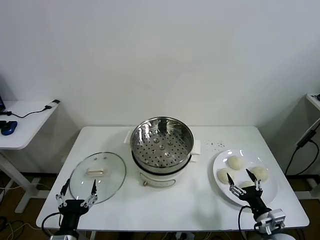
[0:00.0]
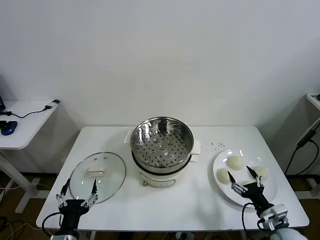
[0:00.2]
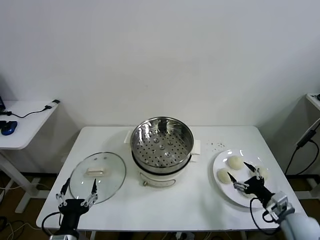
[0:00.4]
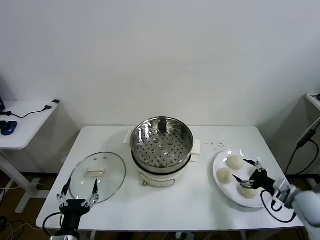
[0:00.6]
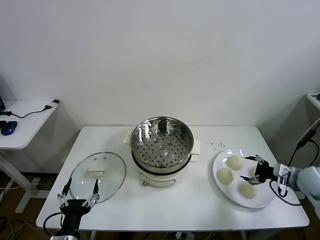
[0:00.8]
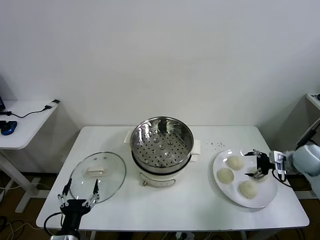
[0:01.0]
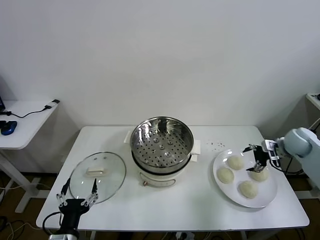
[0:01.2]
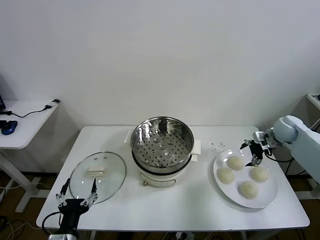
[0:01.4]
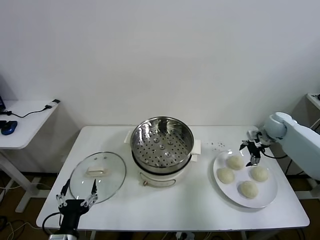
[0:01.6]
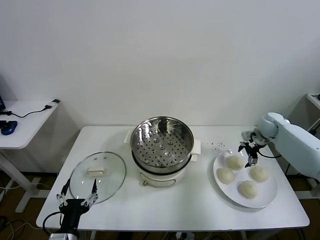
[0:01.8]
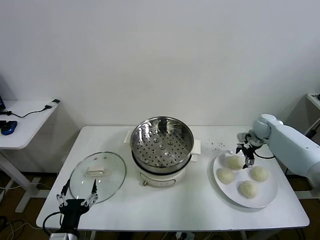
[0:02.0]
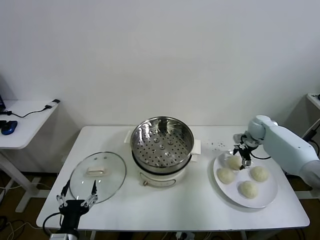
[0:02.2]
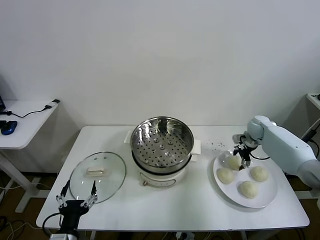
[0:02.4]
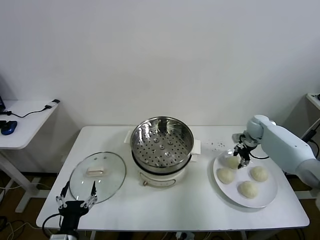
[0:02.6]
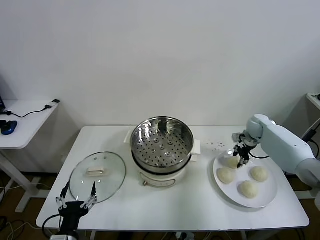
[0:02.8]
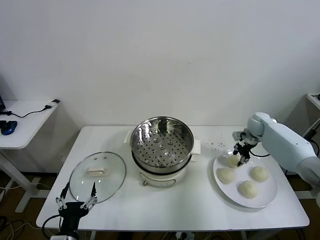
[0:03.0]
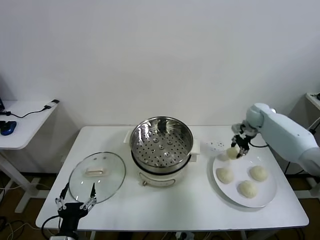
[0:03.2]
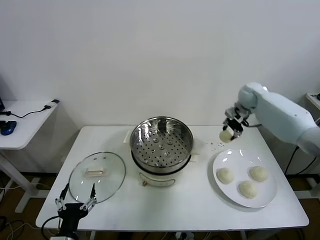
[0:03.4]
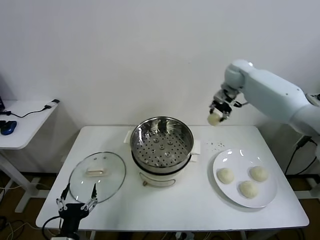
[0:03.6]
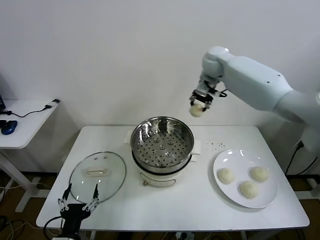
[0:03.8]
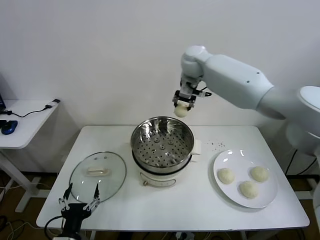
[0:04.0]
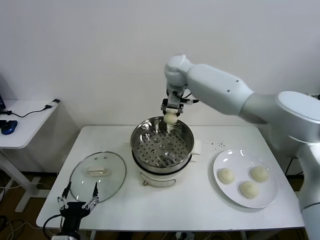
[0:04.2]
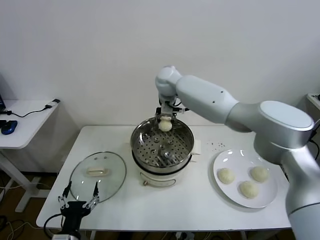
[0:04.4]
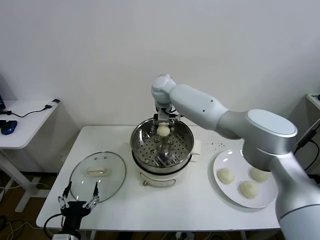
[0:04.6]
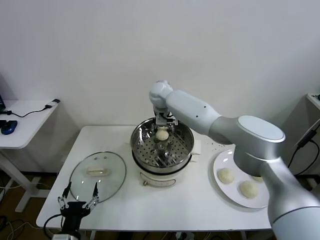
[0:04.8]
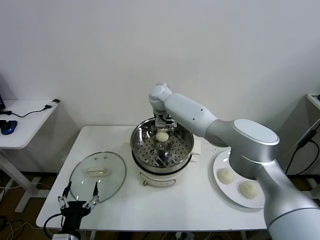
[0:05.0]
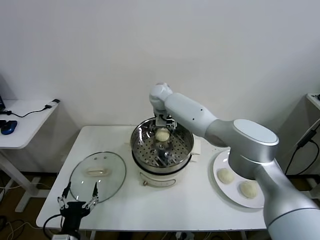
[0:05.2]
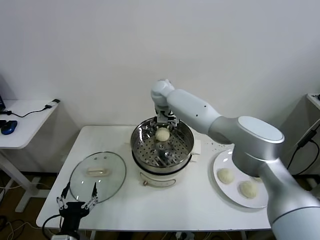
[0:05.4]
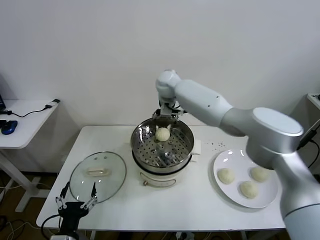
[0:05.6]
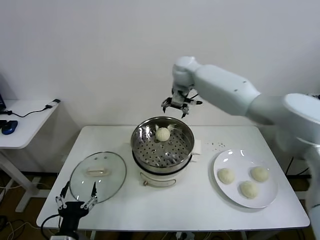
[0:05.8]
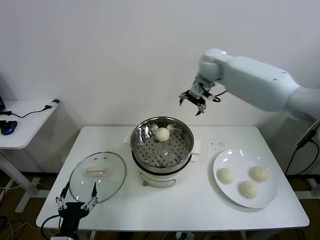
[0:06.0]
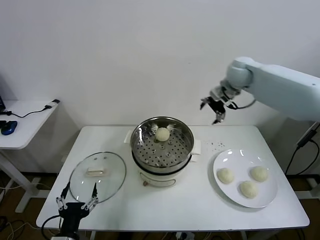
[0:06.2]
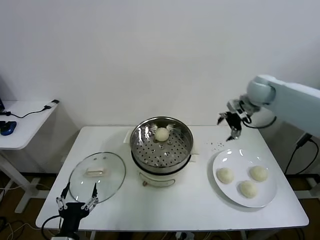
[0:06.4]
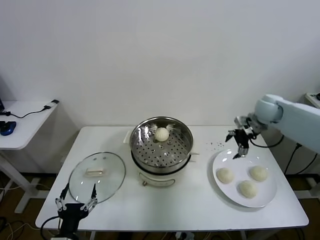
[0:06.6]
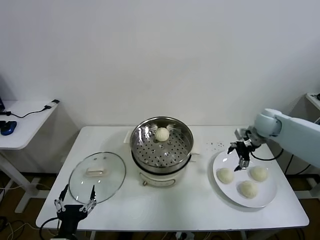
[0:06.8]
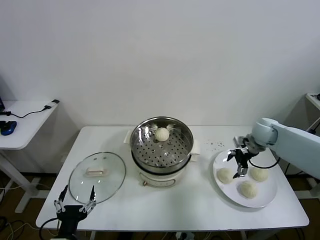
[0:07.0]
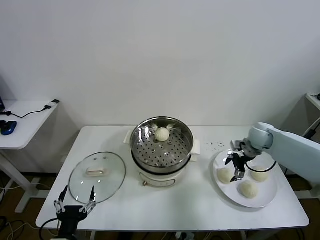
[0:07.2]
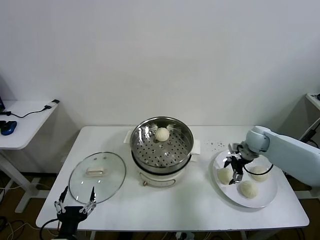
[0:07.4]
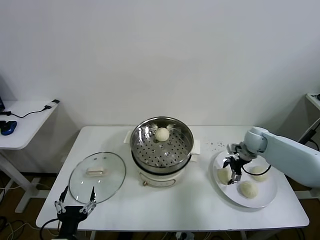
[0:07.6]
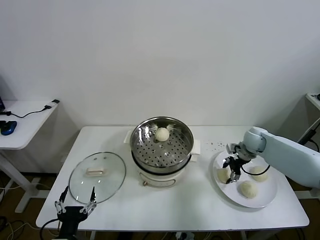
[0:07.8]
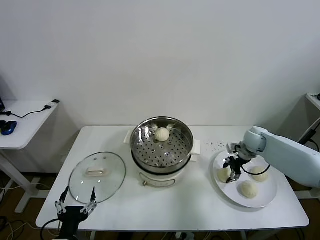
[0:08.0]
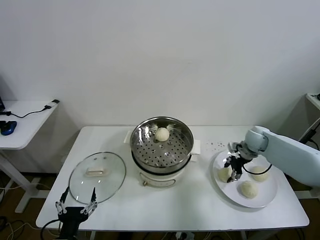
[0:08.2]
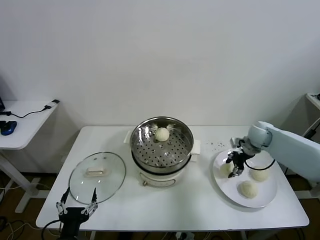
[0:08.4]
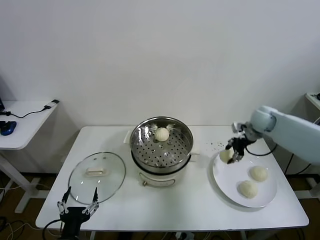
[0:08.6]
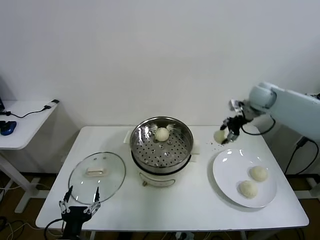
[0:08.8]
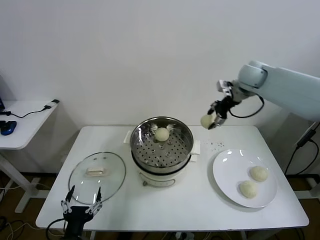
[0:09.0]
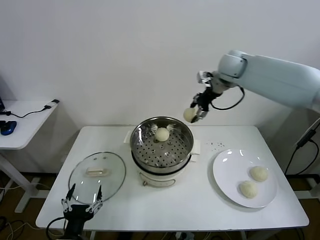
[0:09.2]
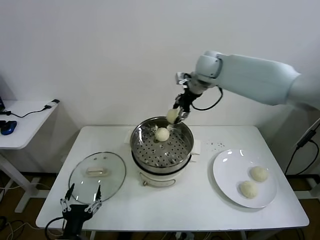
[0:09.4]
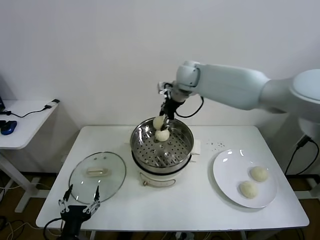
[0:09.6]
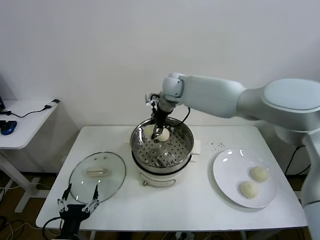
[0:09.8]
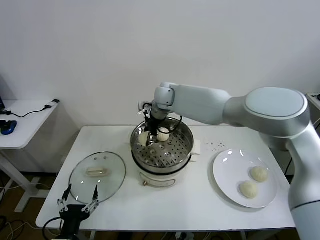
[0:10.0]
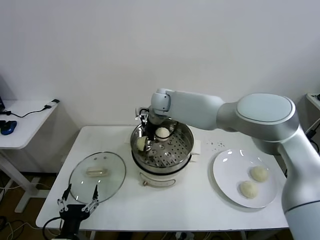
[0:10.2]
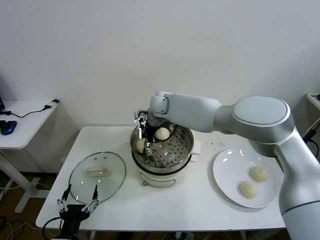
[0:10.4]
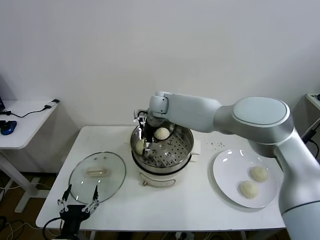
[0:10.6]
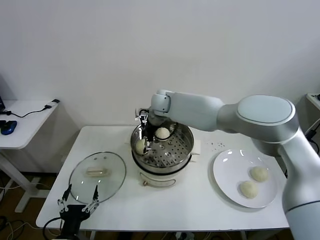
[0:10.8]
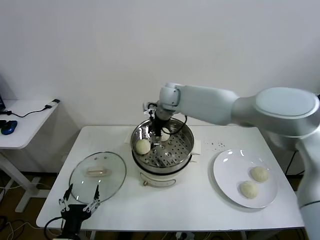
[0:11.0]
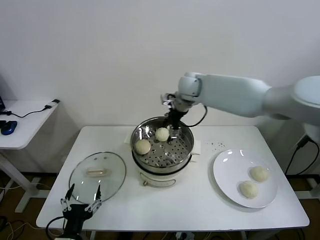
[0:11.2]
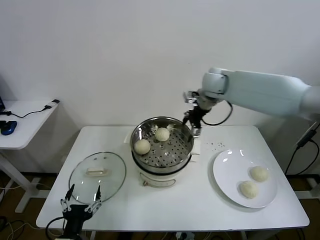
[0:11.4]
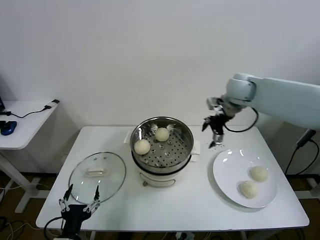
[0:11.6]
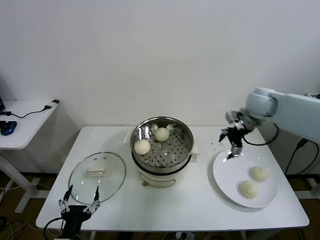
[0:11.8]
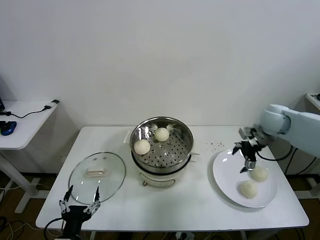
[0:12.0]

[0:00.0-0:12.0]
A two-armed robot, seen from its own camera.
Task of the whole recording: take steamed baozi put them in steamer.
Step, 0:00.0 to 0:02.6: Grasp the baozi in the plate with right gripper.
Step, 0:02.8 to 0:05.4: Place the baozi on the steamer with right gripper.
Step, 0:05.8 to 0:07.6: Grasp the baozi in the plate with right gripper.
Step, 0:07.8 to 0:11.0: Place the baozi on the steamer with right gripper.
0:01.6 to 0:03.0: The right gripper changes place by roughly 5 cm, and closes.
0:03.0 to 0:04.4: The right gripper shifts about 40 cm to the left and upward.
0:04.4 to 0:06.0: The right gripper goes about 20 cm to the right, and opens up.
0:06.0 to 0:07.6: The right gripper heads downward and to the right, covering some 30 cm.
0:07.6 to 0:09.0: The right gripper moves upward, roughly 25 cm, and closes.
0:09.0 to 0:10.4: The right gripper is displaced to the left and downward by some 30 cm.
0:10.4 to 0:12.0: The right gripper is displaced to the right by approximately 40 cm, and opens up.

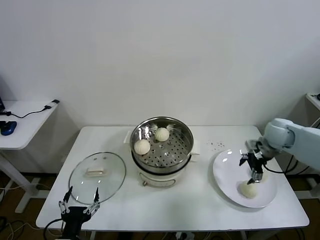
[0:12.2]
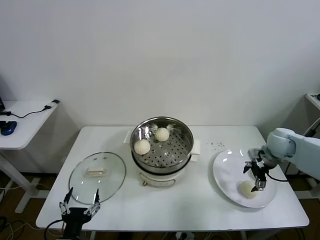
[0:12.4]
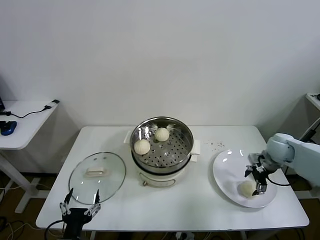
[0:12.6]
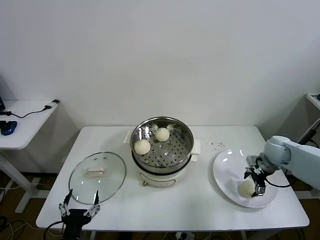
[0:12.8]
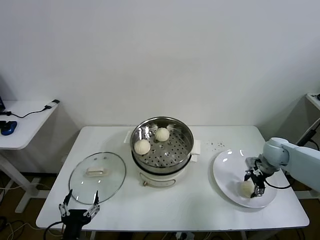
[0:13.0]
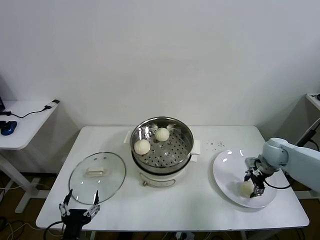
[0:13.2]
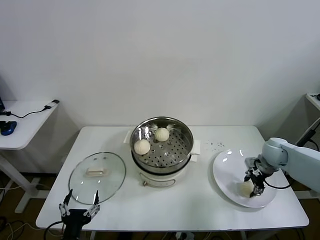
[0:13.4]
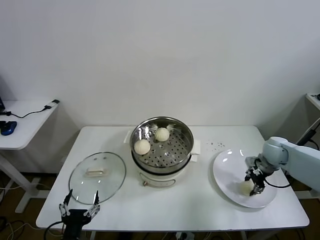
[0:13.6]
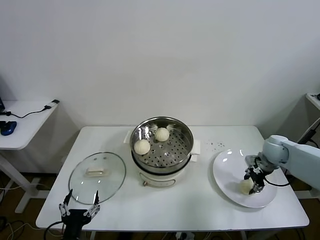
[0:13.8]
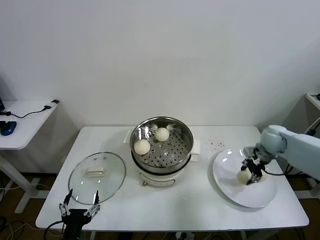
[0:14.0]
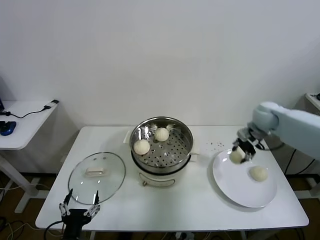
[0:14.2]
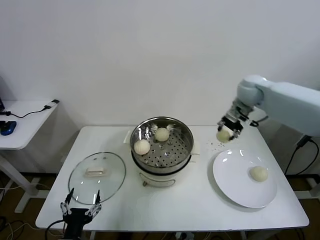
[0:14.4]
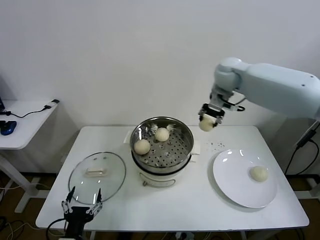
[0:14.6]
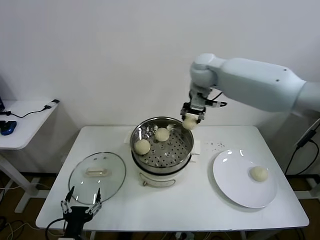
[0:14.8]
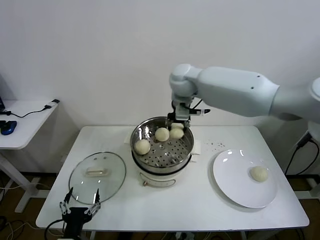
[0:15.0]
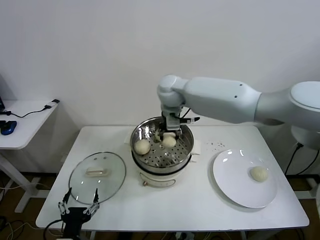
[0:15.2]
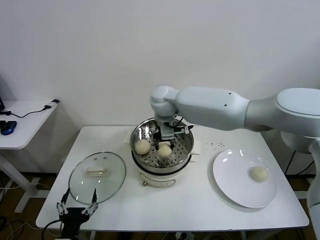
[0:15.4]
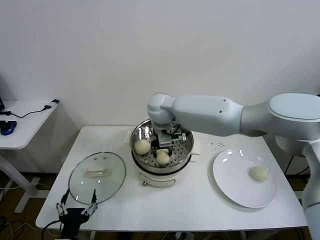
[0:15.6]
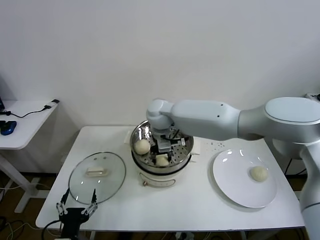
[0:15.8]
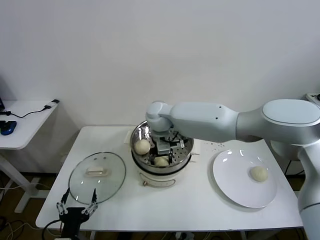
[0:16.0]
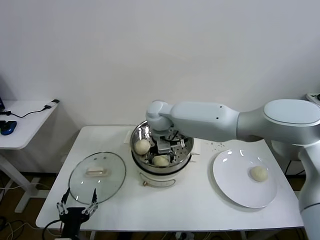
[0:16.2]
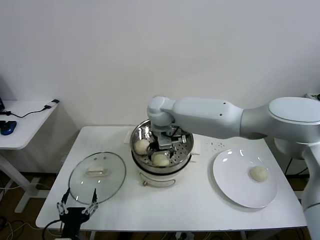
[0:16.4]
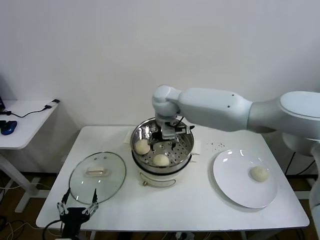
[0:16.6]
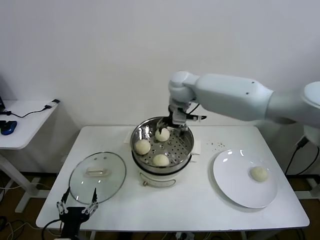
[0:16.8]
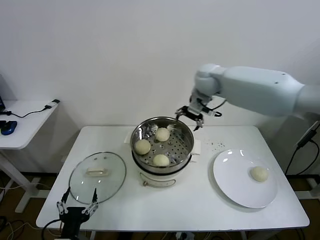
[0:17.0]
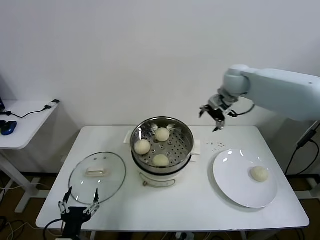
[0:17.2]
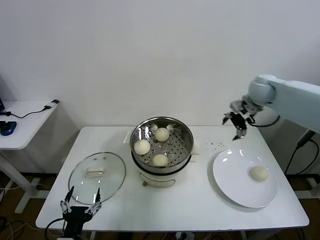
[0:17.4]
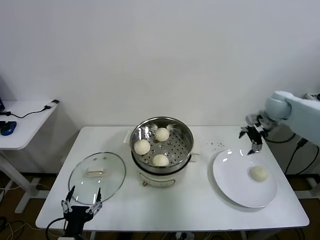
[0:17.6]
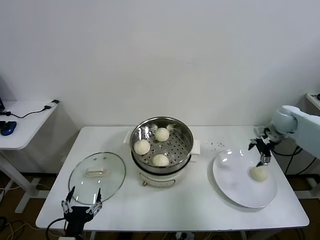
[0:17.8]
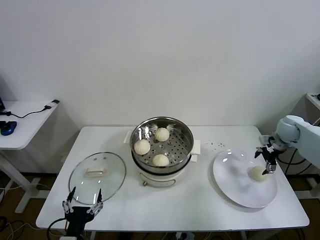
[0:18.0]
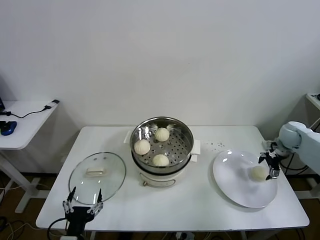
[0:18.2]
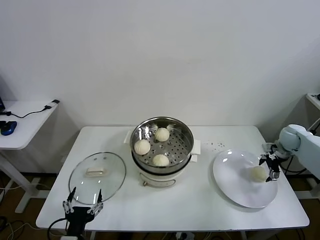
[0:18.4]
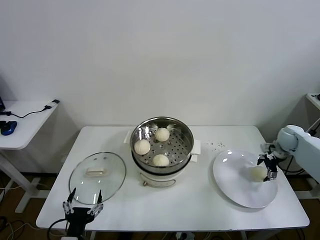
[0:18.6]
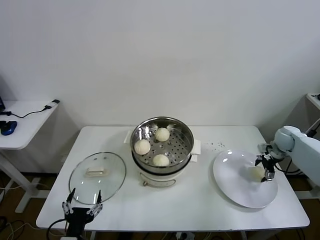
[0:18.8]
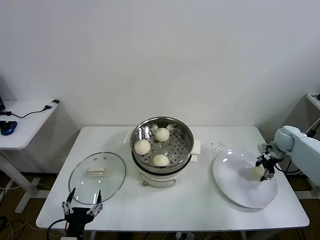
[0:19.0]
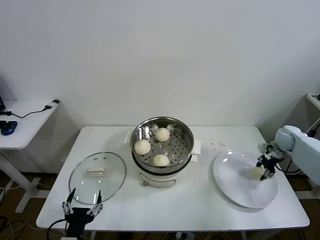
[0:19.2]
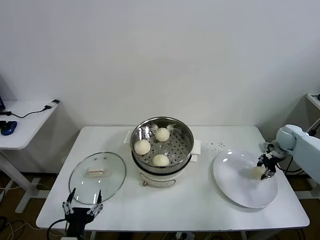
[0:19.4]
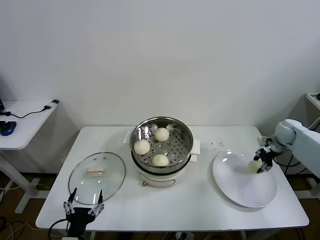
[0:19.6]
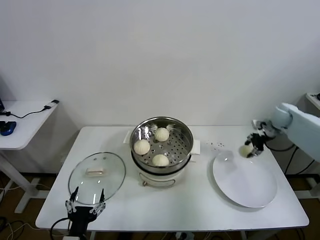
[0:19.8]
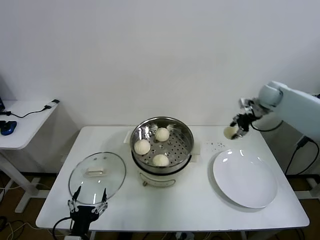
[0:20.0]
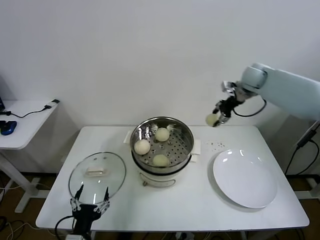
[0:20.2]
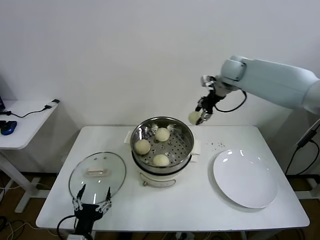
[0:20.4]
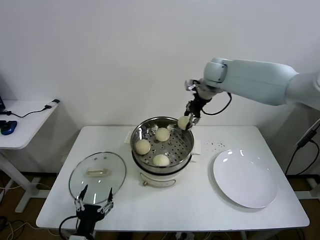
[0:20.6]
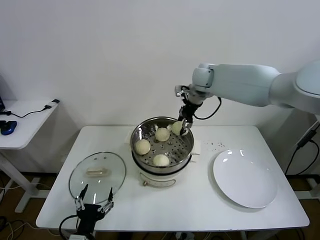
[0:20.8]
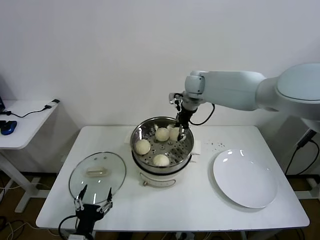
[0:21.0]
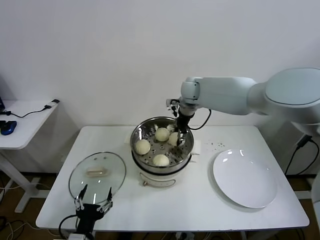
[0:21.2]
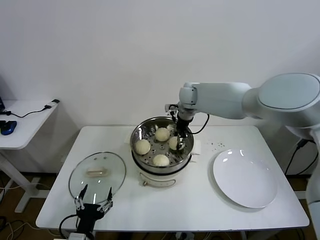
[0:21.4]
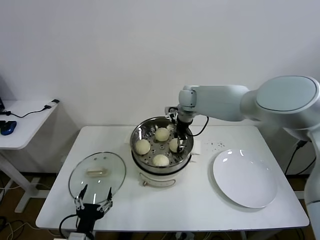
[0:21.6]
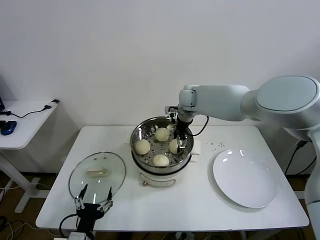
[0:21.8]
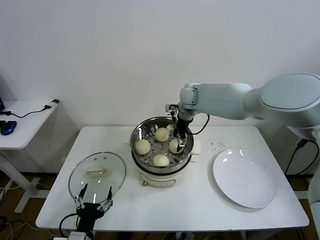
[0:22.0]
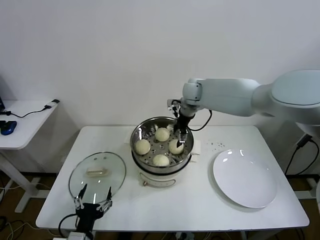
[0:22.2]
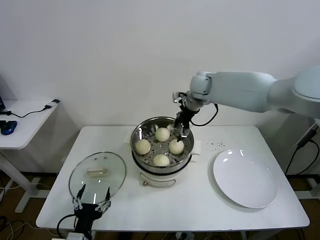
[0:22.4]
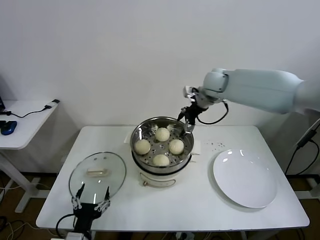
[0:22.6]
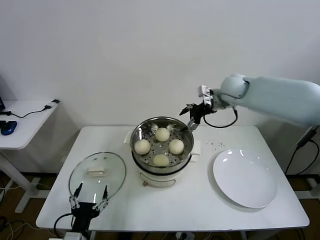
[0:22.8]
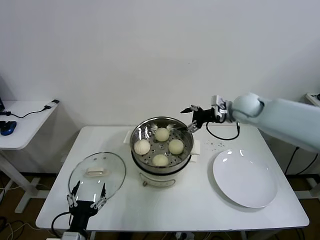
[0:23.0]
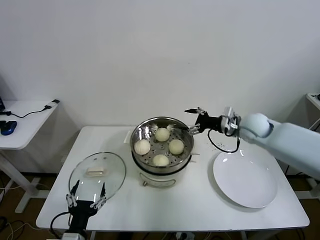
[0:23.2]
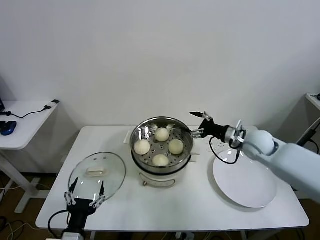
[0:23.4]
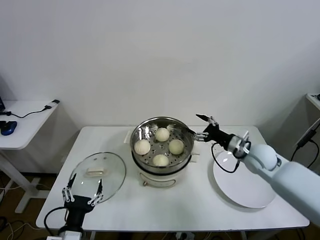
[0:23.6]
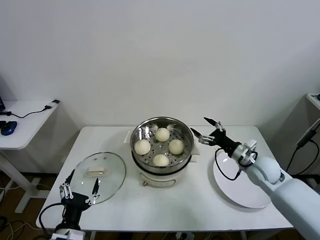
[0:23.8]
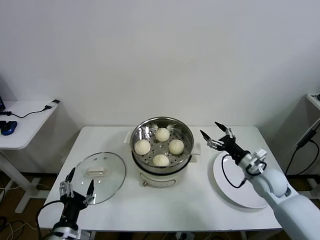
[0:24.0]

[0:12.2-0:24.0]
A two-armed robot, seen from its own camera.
Task of the whole recording: take steamed baozi put them in steamer.
Step, 0:13.4 to 0:16.4: Place the baozi on the steamer with right gripper.
Step, 0:16.6 to 0:19.0: Grasp the baozi in the plate with right gripper.
Step, 0:19.2 to 0:22.2: Place the baozi on the steamer with right gripper.
0:12.2 to 0:13.6: The right gripper moves downward, some 5 cm, and closes up.
0:13.6 to 0:15.2: The right gripper is displaced to the left and upward by approximately 40 cm.
0:15.2 to 0:16.6: The right gripper reaches approximately 10 cm downward, then returns, and opens its fingers.
0:16.6 to 0:18.2: The right gripper is displaced to the right by approximately 50 cm.
0:18.2 to 0:19.6: The right gripper closes.
0:19.6 to 0:21.0: The right gripper moves to the left and upward, some 40 cm.
0:21.0 to 0:22.6: The right gripper goes about 5 cm to the right, and opens its fingers.
0:22.6 to 0:24.0: The right gripper is displaced downward, backward and to the right by about 35 cm.
